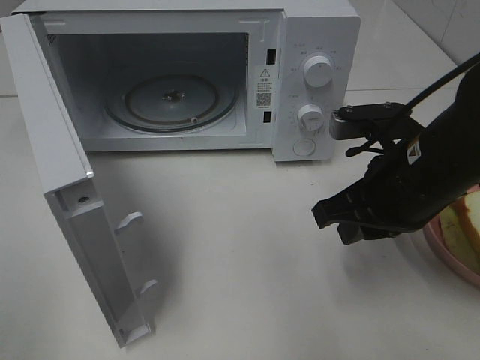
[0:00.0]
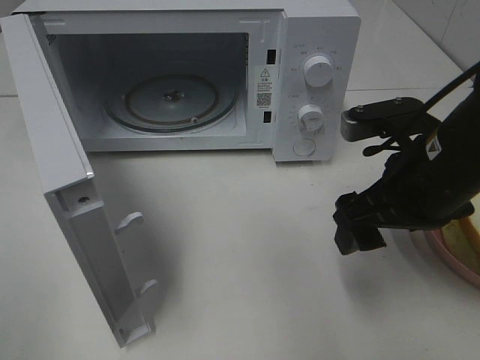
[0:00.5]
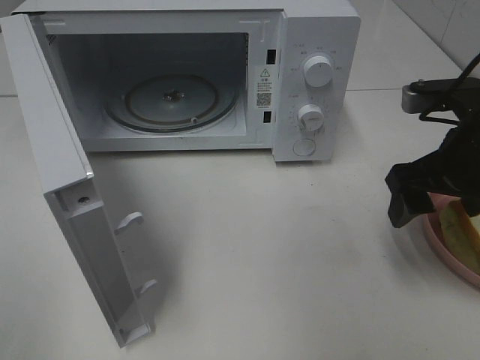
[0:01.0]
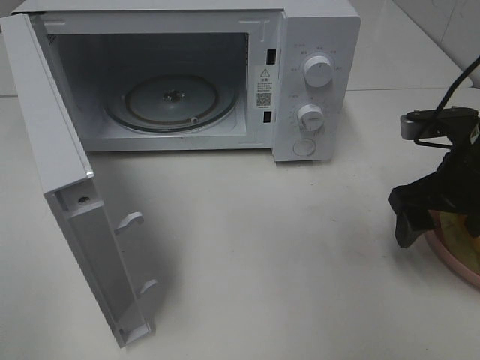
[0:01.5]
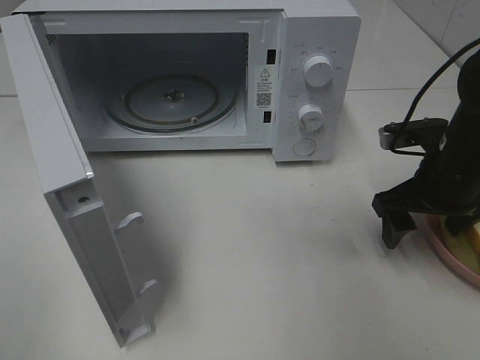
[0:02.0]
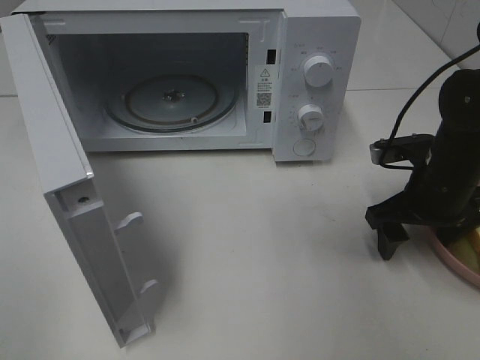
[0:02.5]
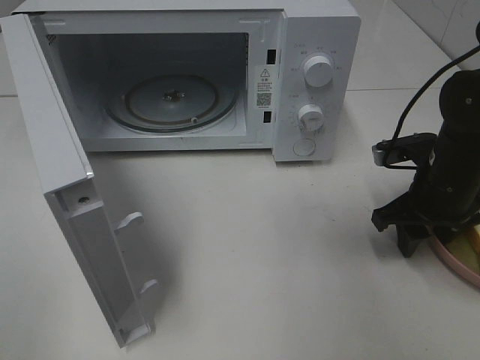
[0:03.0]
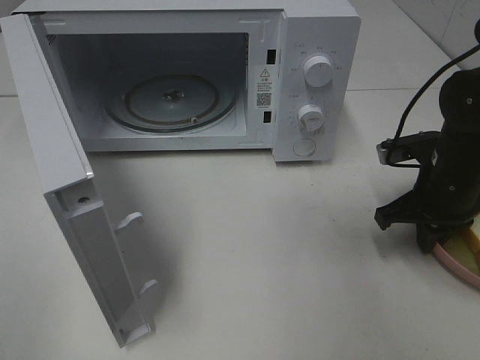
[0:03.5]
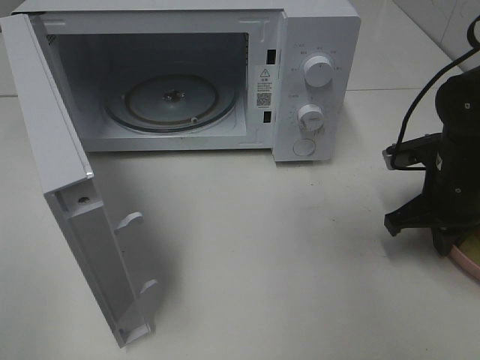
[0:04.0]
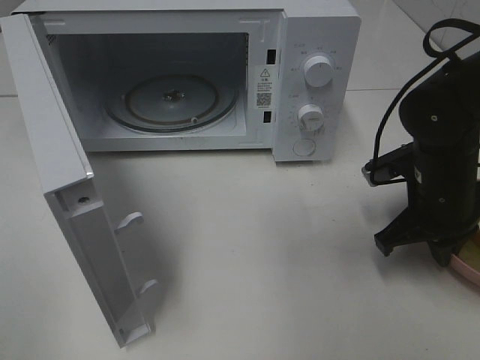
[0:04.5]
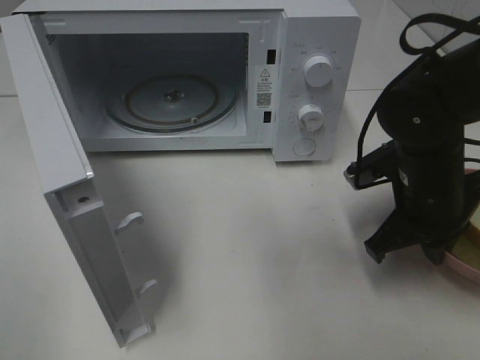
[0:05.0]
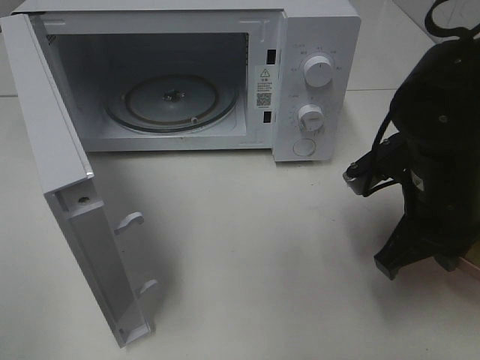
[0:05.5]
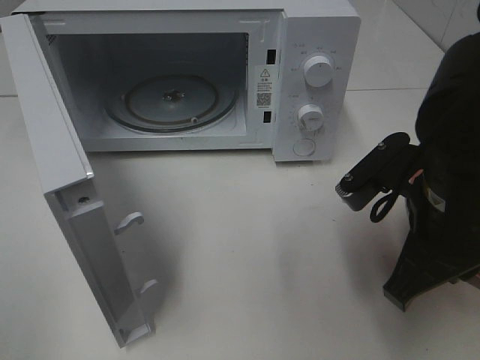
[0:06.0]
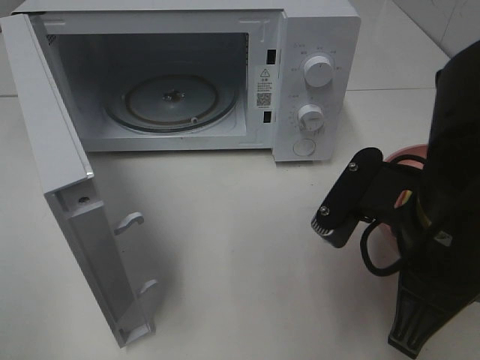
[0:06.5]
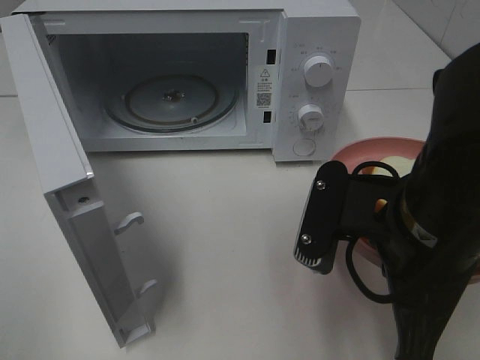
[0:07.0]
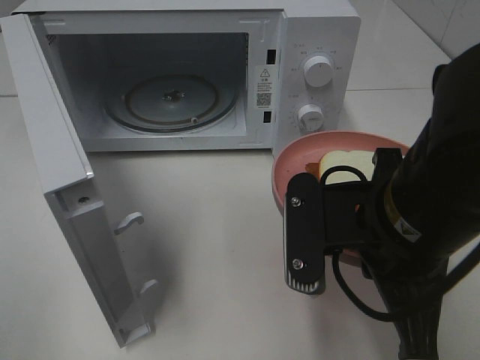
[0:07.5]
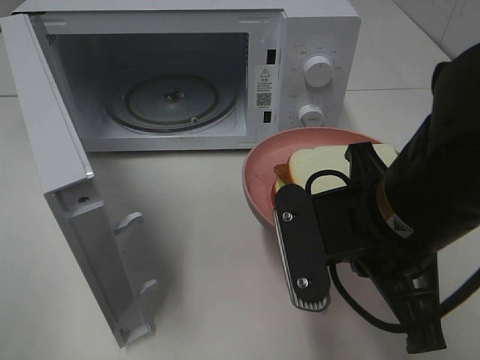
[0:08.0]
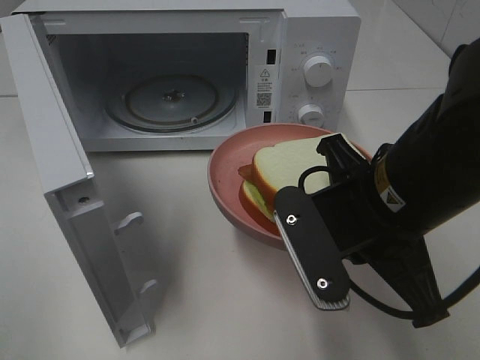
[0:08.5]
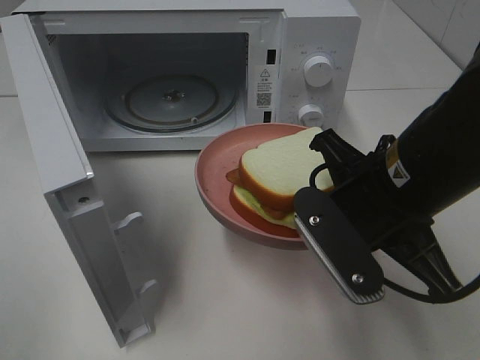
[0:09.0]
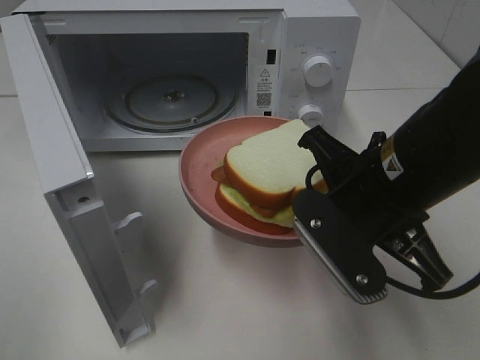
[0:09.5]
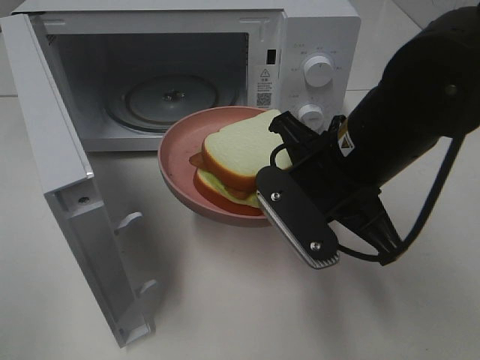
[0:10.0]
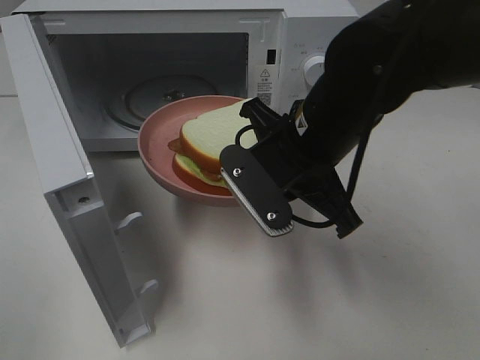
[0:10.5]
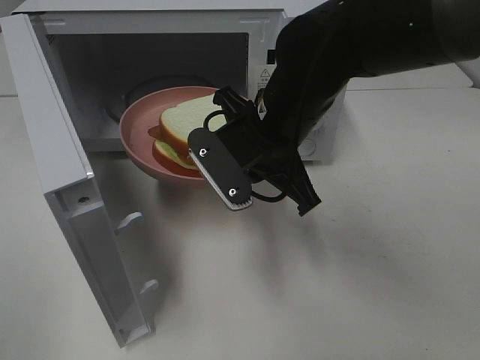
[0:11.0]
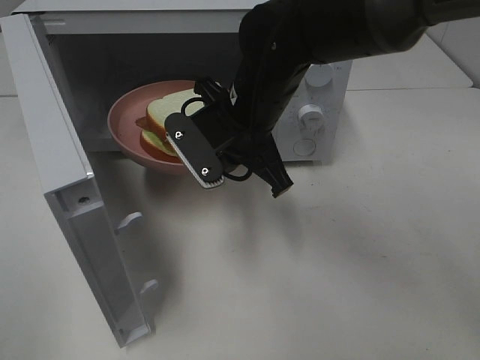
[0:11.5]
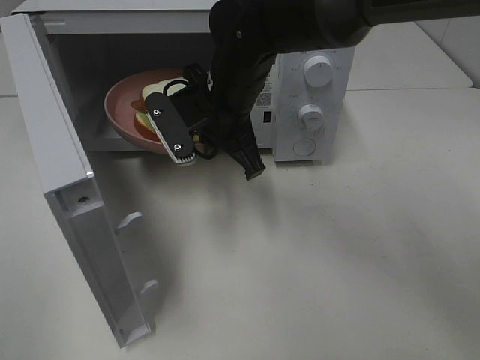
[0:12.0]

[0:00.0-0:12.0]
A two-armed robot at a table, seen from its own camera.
Task of the whole recording: Heat Sandwich.
Step, 0:00.0 to 0:03.0: Right hand: grab the plate with the sandwich.
0:00.0 to 0:02.0: The right gripper goes some 10 cm to the right and forward, and opens up.
0:02.0 to 0:04.0: The right gripper closes.
0:04.0 to 0:06.0: The right gripper is displaced backward, to the left and upward by approximately 15 cm.
0:06.0 to 0:08.0: The right gripper shifts roughly 5 cm to the left.
0:08.0 to 0:10.0: The right gripper travels forward by roughly 5 cm.
0:10.0 to 0:12.0: The right gripper moves forward and to the left, approximately 15 cm.

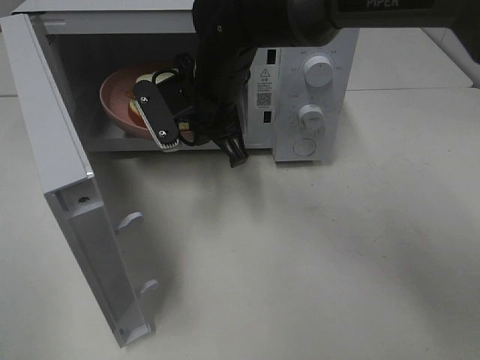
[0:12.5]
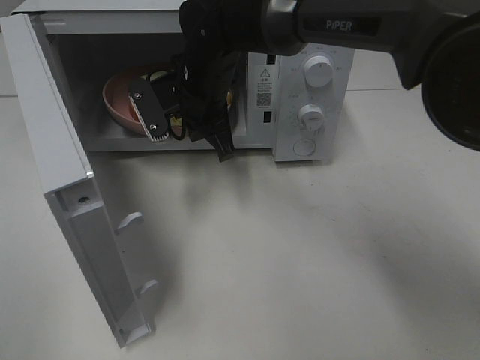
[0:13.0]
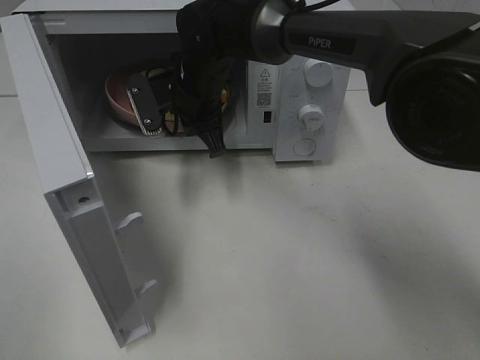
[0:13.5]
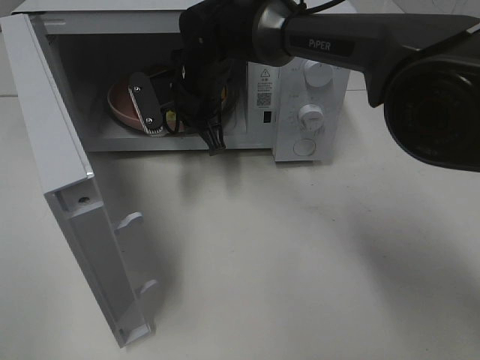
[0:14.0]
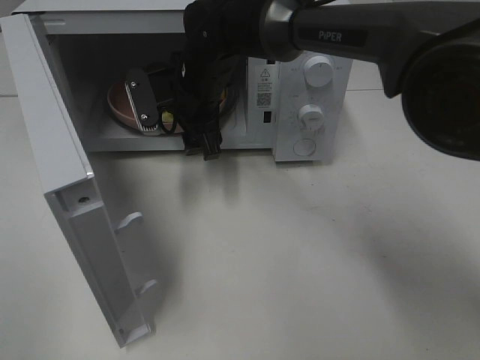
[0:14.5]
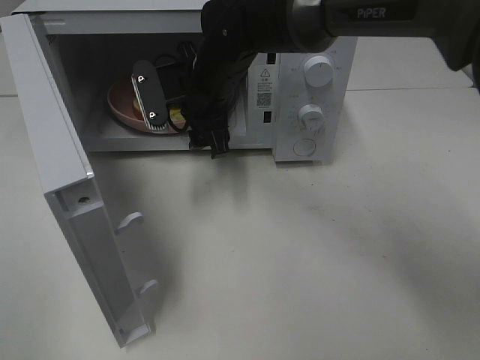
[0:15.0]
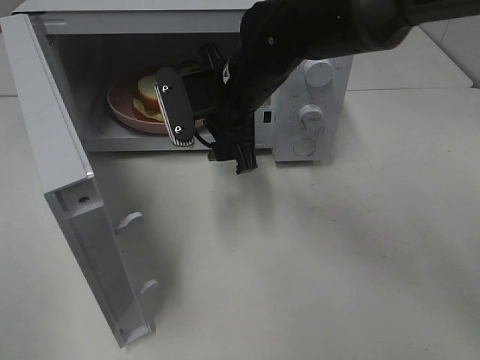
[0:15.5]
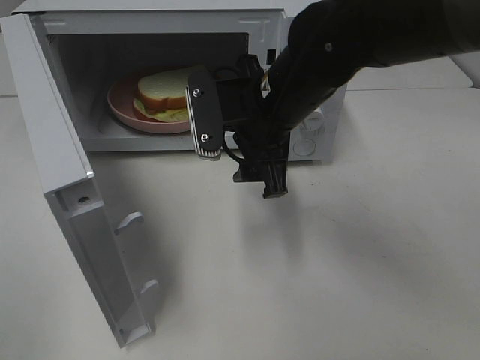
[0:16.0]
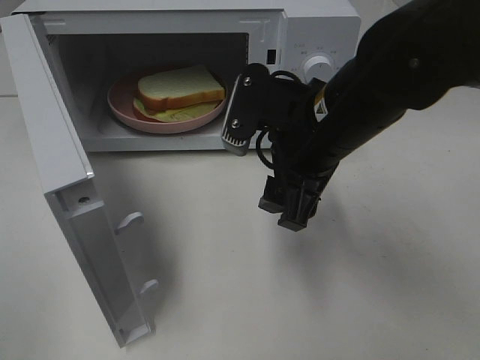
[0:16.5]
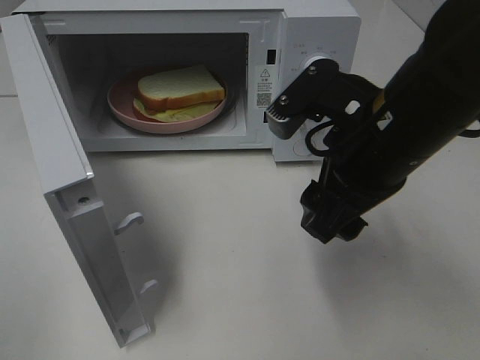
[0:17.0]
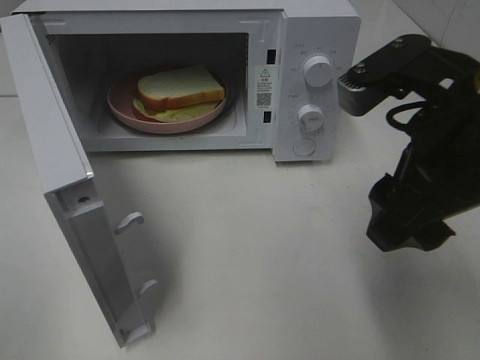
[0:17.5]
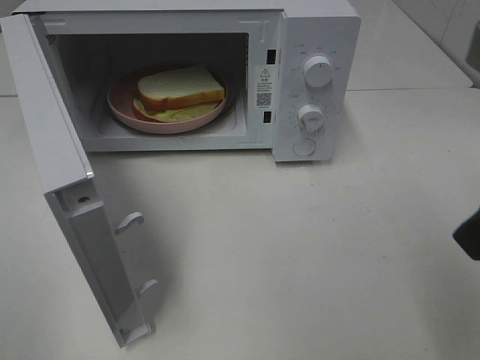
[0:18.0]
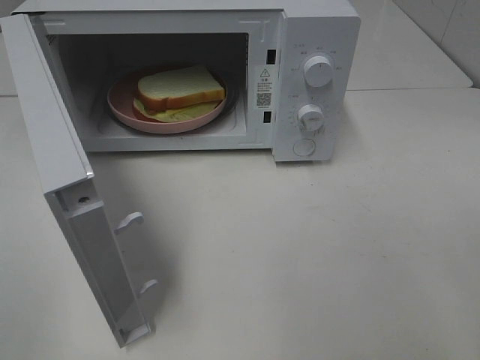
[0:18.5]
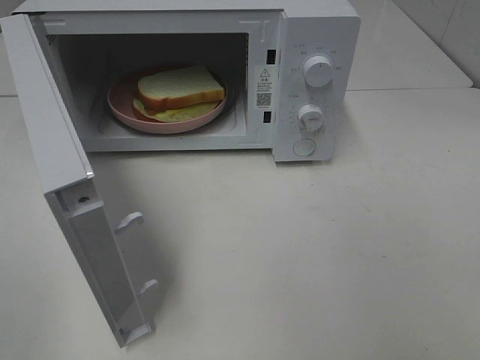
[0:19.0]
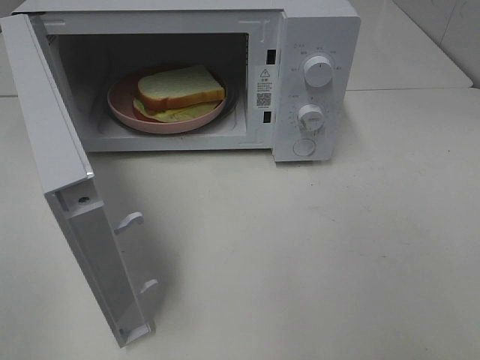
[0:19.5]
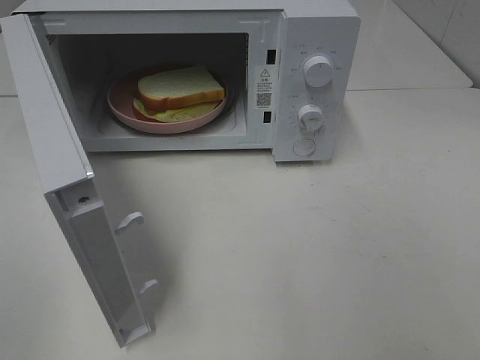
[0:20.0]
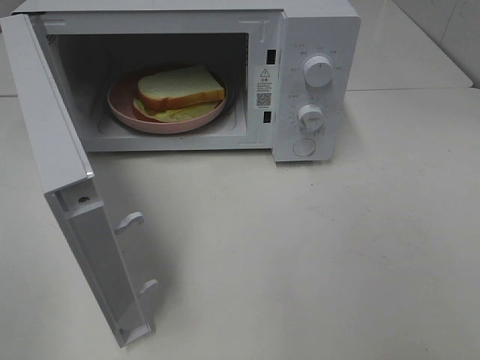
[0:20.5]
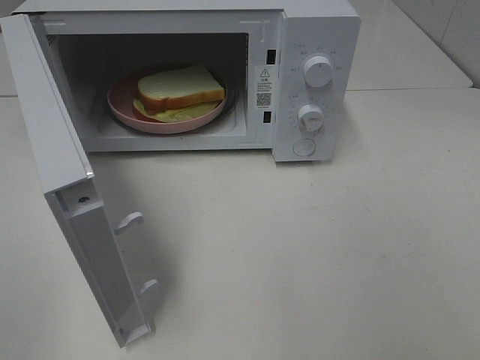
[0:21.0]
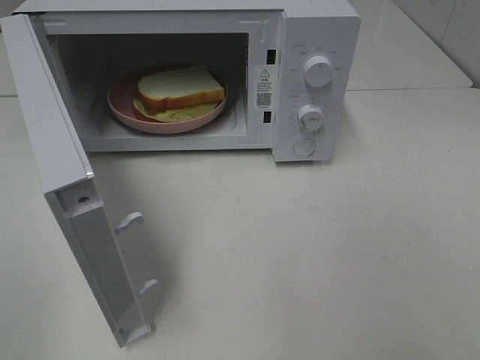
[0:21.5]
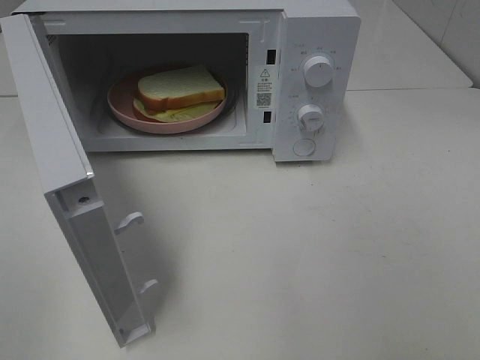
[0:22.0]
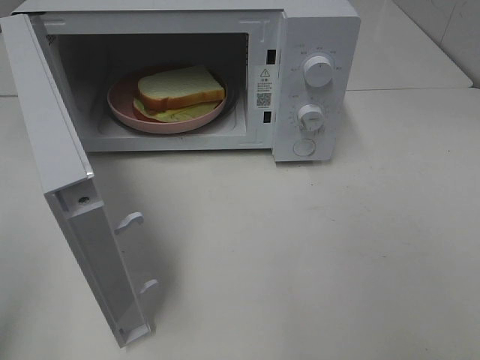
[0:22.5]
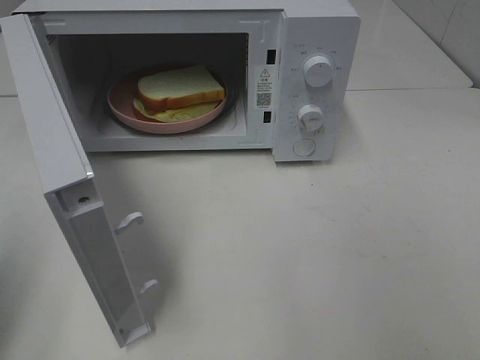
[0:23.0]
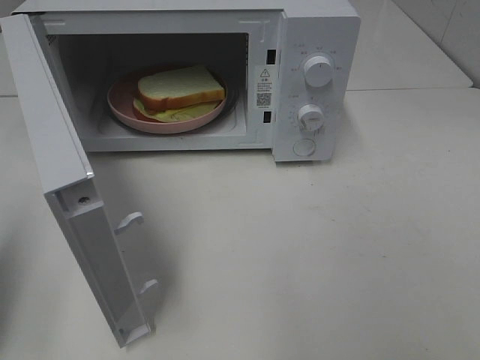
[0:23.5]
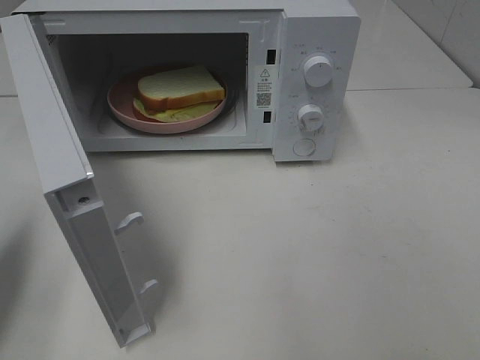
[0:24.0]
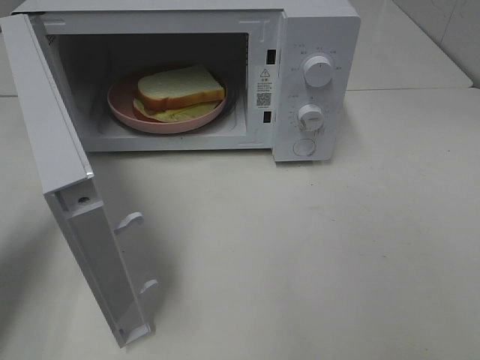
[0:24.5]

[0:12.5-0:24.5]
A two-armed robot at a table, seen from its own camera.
Task of the whole recording: Heat Sandwich.
Step, 0:12.5 to 0:15.0: Right hand: place the plate in the microwave.
0:12.5 to 0:14.5: The right gripper opens its fingers.
0:14.5 to 0:16.5: The right gripper goes approximately 20 cm backward and to the right.
0:16.5 to 0:18.5: The right gripper shifts approximately 25 cm backward, to the right and upward.
0:22.5 to 0:24.5: The left gripper heads forward and downward, covering roughly 20 cm, and closes its fingers.

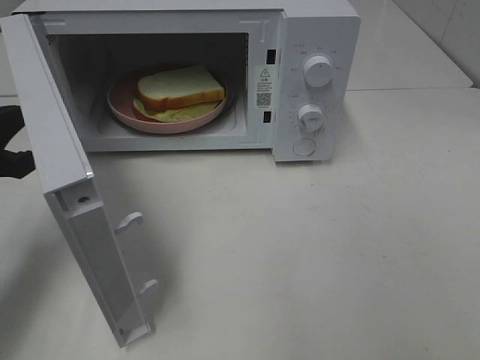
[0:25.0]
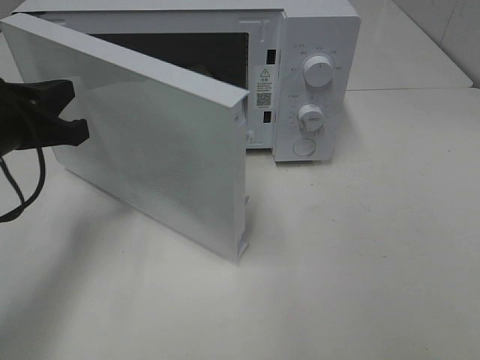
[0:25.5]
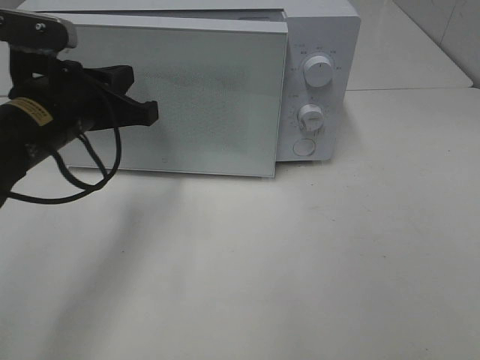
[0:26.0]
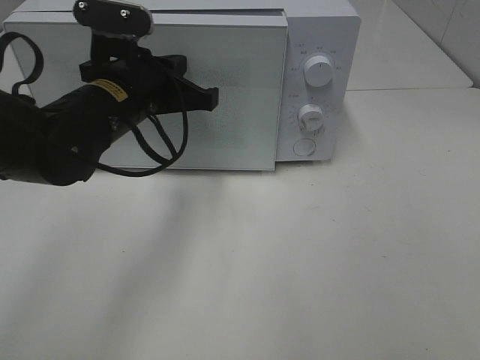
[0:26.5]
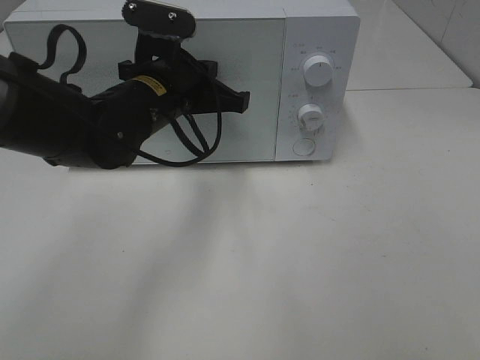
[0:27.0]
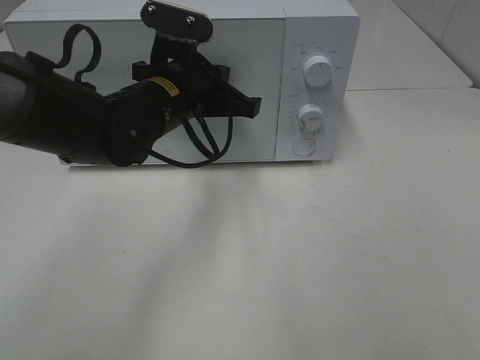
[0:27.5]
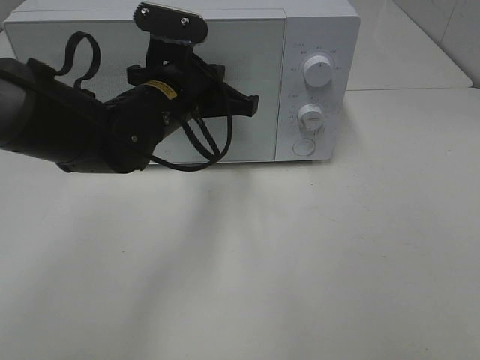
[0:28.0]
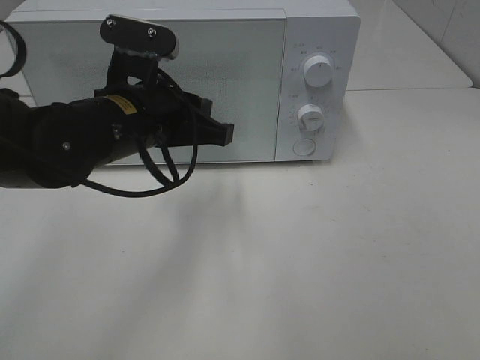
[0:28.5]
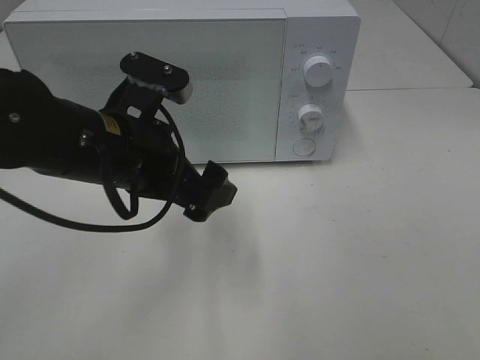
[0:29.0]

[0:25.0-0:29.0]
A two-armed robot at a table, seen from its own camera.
Task of the whole recording: Heat Sandwich.
Step, 0:25.0 to 0:28.5: Left hand: close the microwave door.
0:25.0 to 0:27.0: The left gripper travels to the right and forward by about 25 cm.
0:27.0 to 0:29.0: The left gripper moves backward, approximately 10 cm, and opens up.
